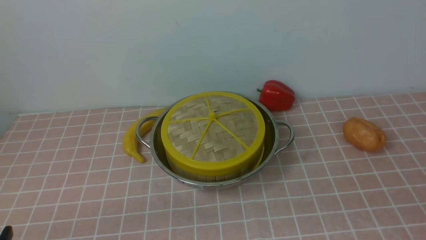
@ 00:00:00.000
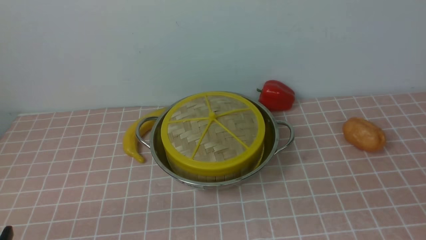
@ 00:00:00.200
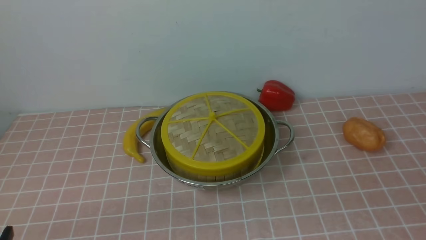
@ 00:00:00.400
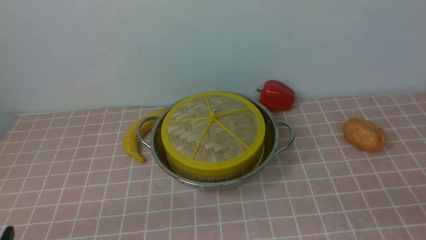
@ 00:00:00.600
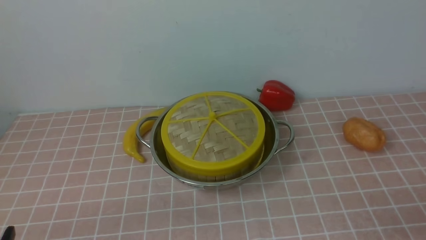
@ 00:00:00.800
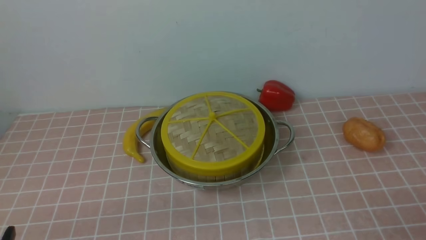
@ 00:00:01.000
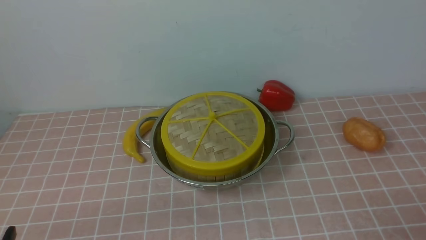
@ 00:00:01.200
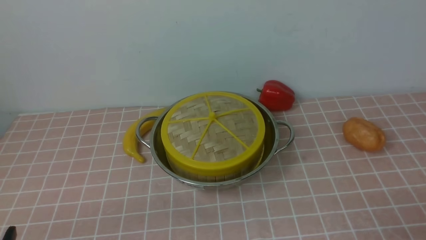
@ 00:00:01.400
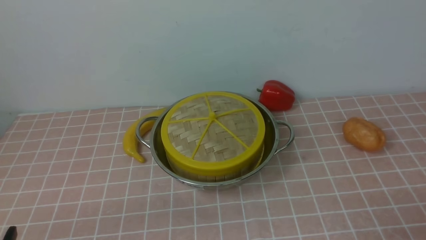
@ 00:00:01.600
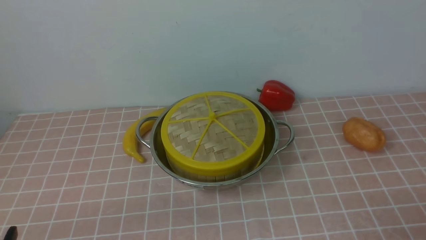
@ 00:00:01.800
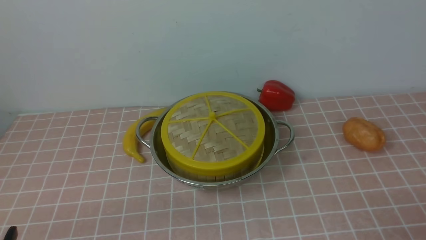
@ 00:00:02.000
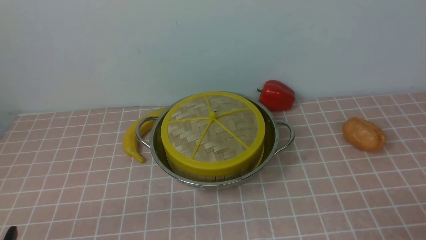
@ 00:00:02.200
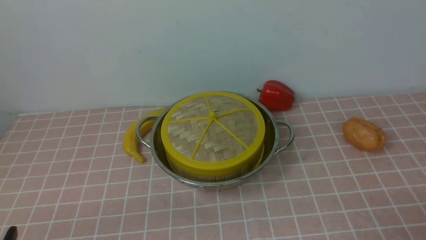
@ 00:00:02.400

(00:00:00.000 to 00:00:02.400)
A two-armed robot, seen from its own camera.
Task of the whole recording: place the steamer in the pot on the pink tablecloth, and put the lid on the steamer.
00:00:01.200 - 00:00:02.400: The two grippers keep their place.
